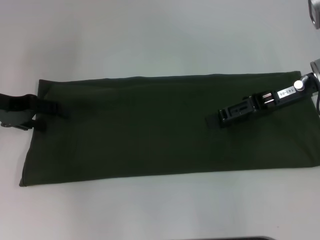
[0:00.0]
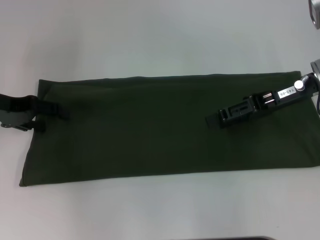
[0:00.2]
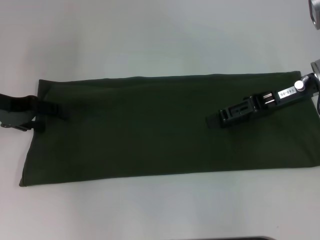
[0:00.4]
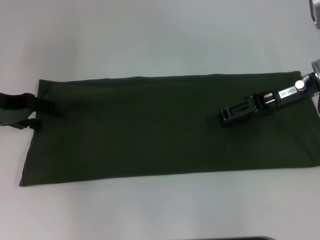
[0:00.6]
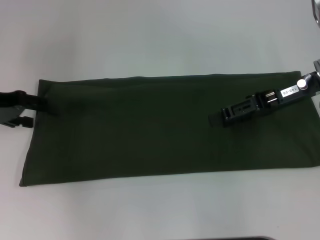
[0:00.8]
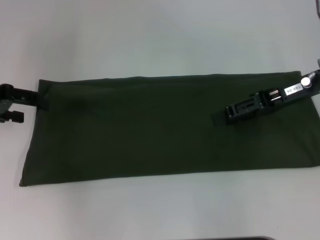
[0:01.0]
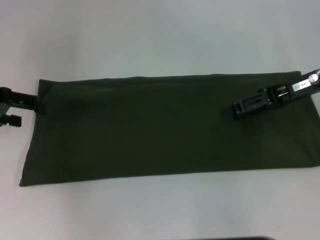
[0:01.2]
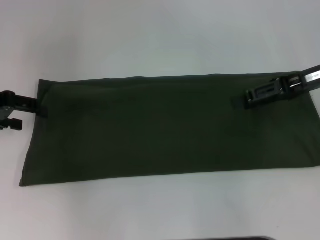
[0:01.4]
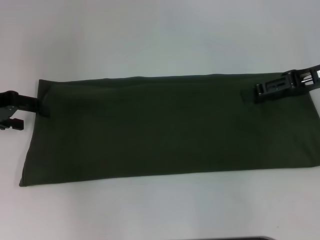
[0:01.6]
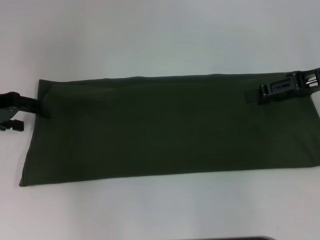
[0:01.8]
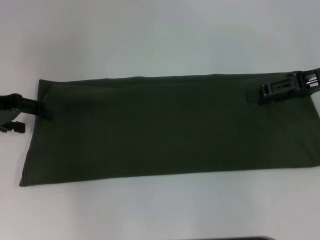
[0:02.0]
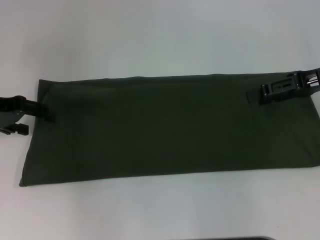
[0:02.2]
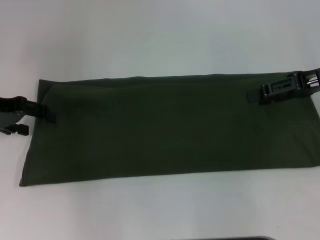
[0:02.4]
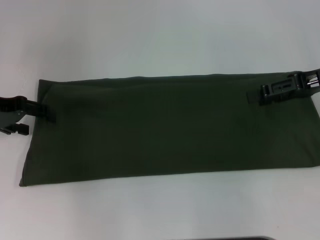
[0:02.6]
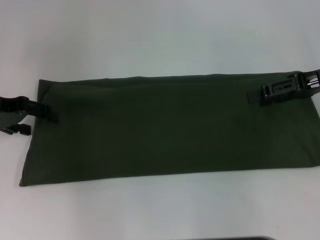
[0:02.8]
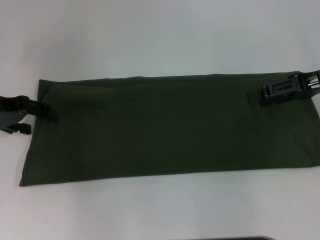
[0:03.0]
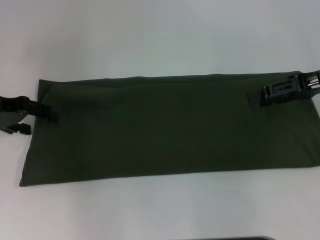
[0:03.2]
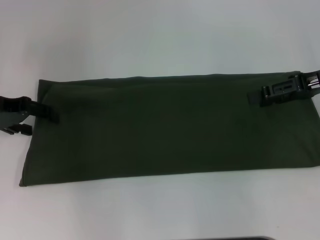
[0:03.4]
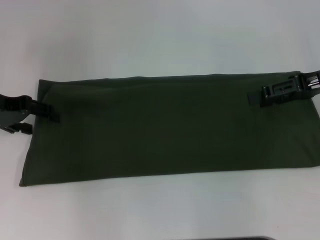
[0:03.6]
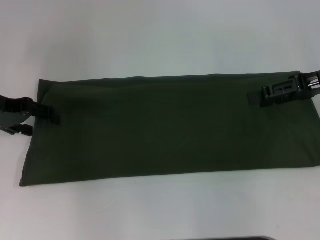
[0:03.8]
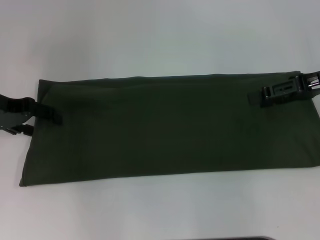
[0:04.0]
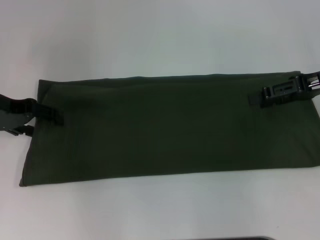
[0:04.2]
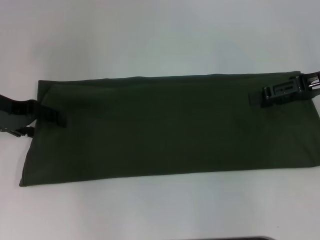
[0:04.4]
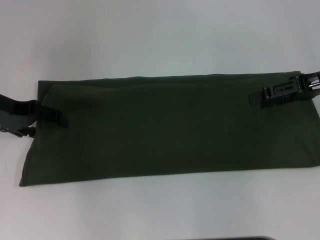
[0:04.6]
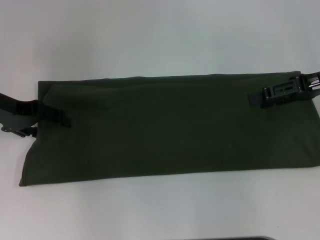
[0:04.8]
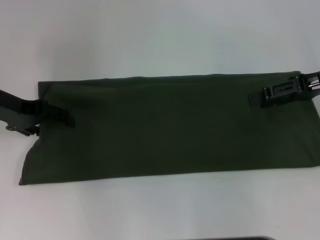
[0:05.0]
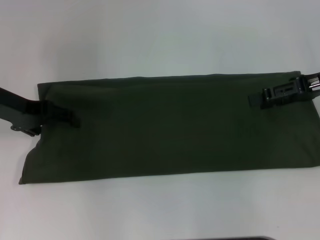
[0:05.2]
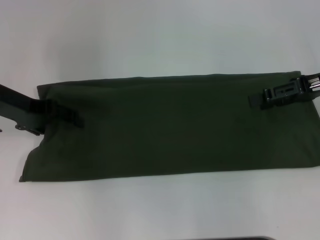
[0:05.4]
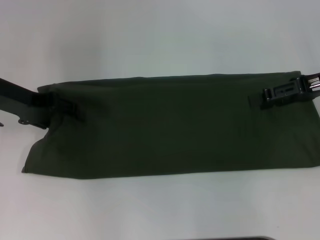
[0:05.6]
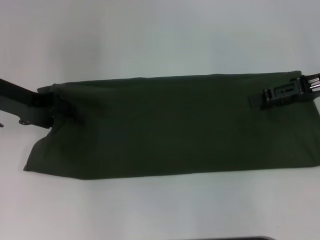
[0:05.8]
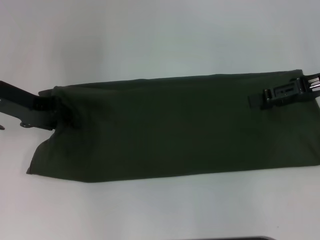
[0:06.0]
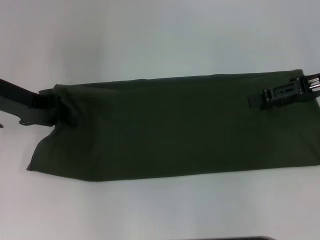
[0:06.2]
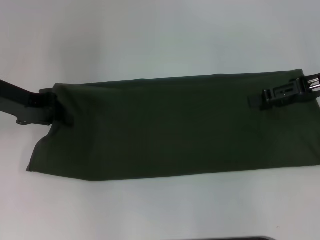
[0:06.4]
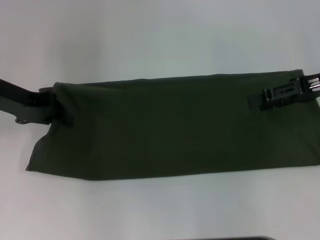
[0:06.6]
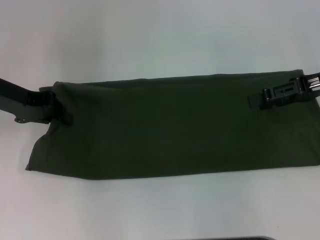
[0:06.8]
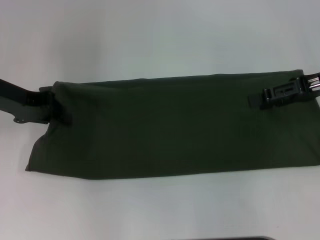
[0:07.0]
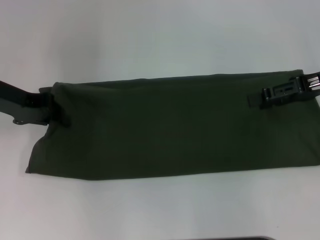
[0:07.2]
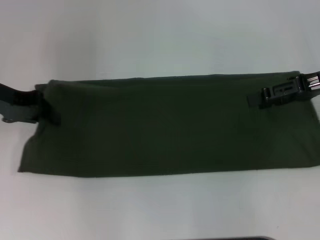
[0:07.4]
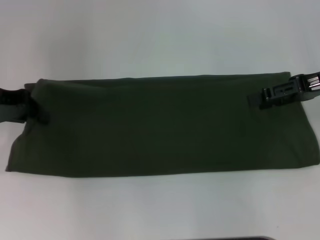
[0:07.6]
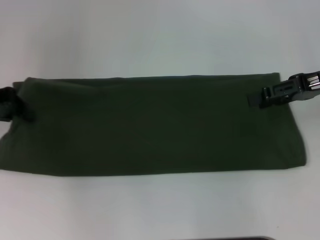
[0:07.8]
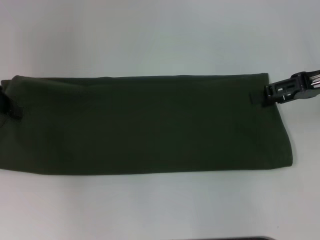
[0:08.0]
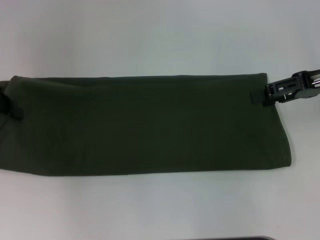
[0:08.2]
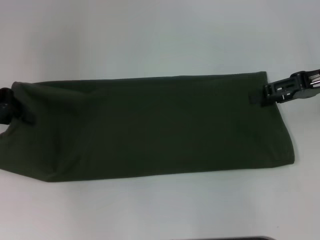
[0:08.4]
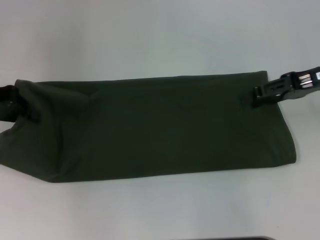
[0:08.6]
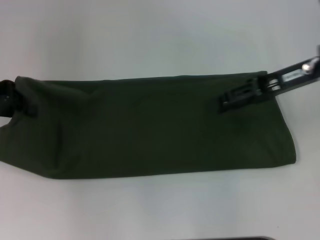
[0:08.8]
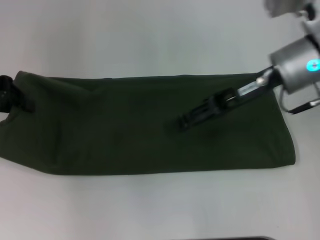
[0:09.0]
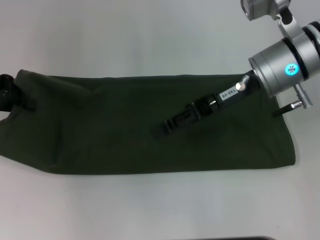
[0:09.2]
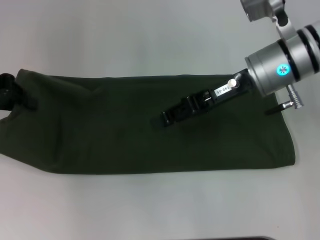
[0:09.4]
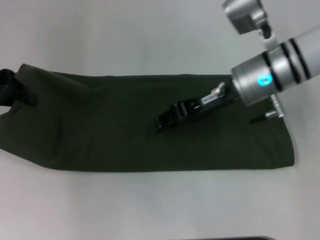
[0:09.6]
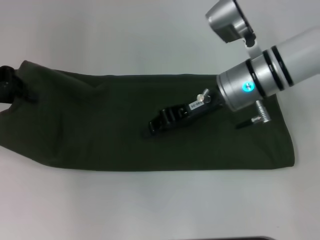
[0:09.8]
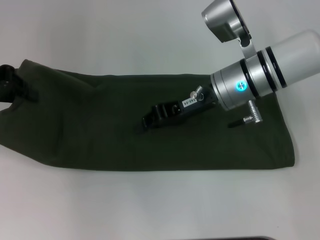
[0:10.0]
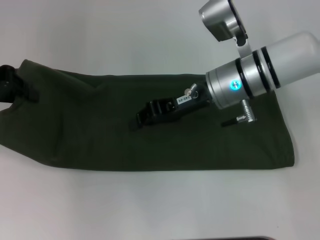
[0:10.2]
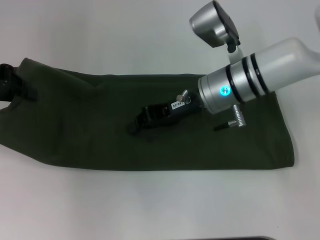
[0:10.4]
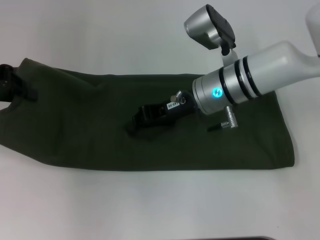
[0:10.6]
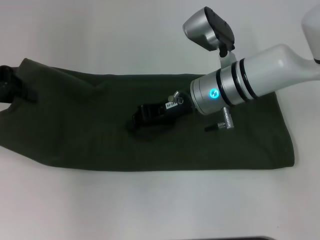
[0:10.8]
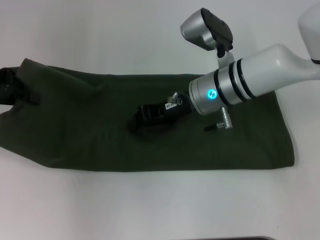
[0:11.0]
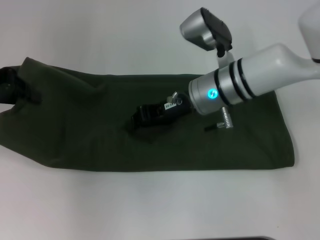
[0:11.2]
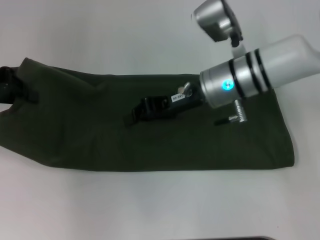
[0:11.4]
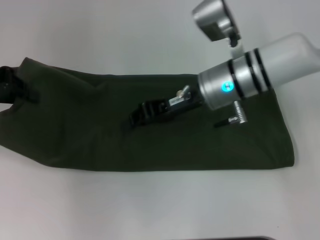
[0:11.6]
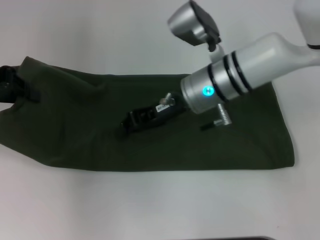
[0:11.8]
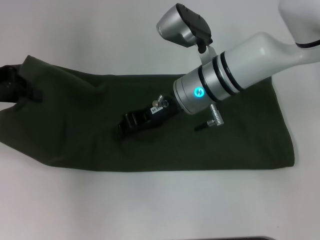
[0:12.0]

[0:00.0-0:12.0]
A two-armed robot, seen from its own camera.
0:00.0 to 0:01.6: The right gripper heads to the right, covering approximately 5 cm.
0:01.6 to 0:03.0: The grippers make only small movements.
0:04.4 to 0:06.0: The left gripper closes.
0:06.0 to 0:07.6: The left gripper closes.
0:07.6 to 0:09.0: The right gripper heads to the left, covering some 10 cm.
0:09.0 to 0:10.4: The right gripper travels to the left and downward by roughly 10 cm, and closes its fingers.
0:10.4 to 0:12.0: There are only small adjustments of the grippers.

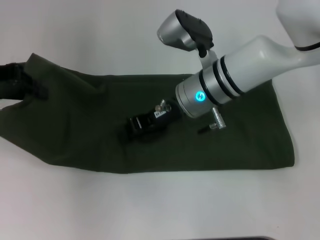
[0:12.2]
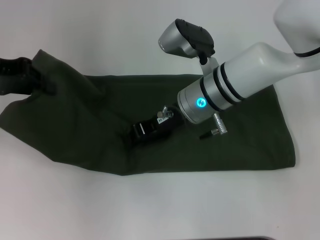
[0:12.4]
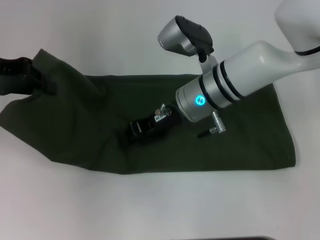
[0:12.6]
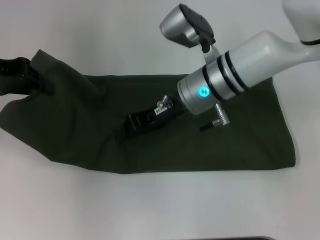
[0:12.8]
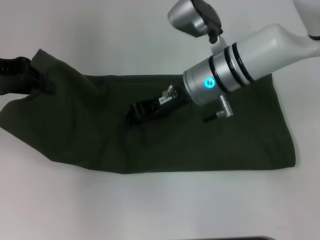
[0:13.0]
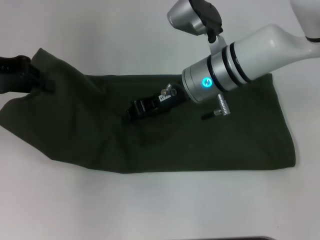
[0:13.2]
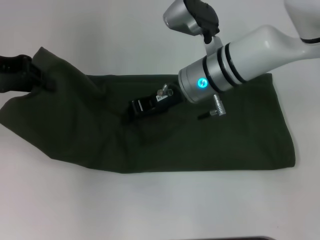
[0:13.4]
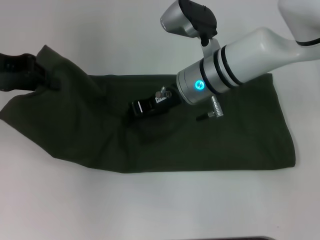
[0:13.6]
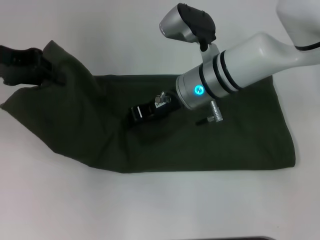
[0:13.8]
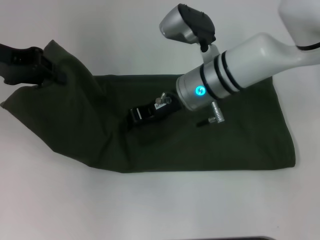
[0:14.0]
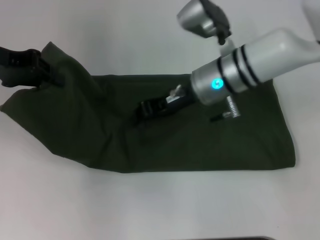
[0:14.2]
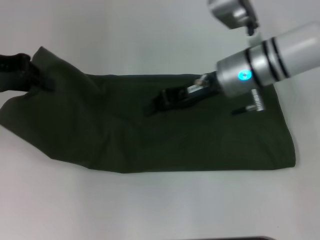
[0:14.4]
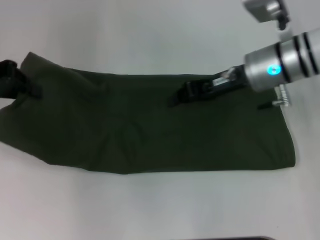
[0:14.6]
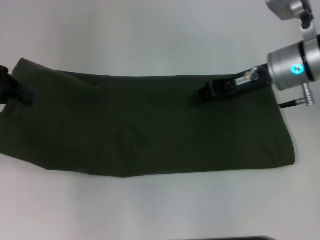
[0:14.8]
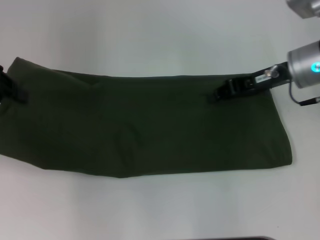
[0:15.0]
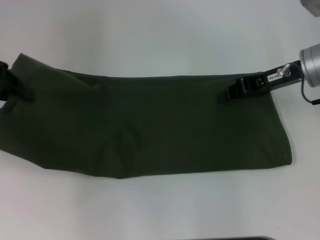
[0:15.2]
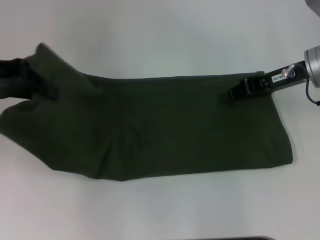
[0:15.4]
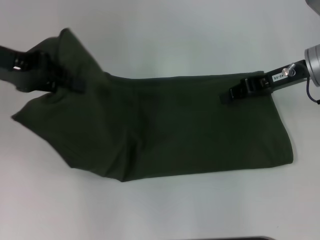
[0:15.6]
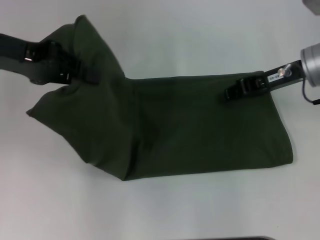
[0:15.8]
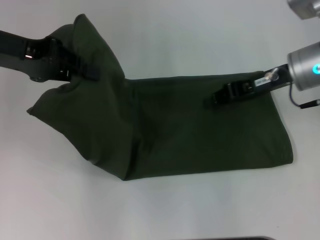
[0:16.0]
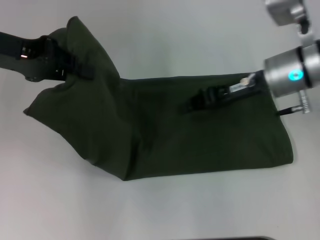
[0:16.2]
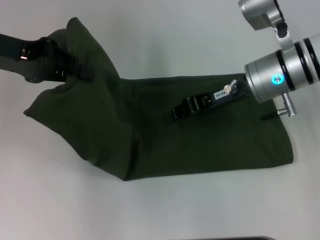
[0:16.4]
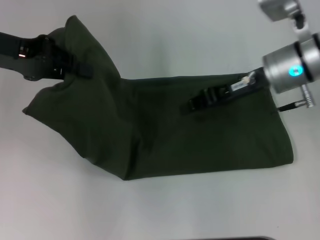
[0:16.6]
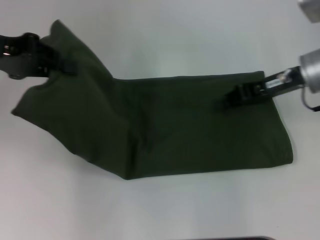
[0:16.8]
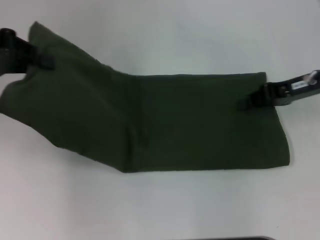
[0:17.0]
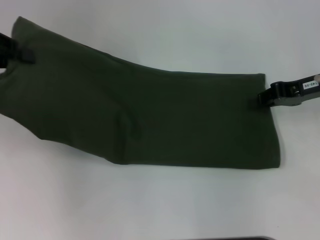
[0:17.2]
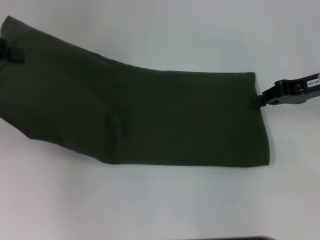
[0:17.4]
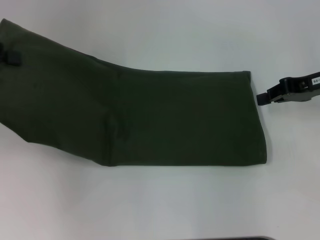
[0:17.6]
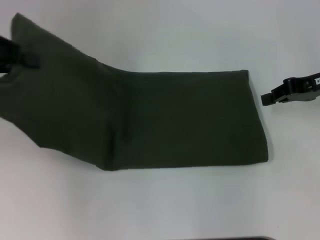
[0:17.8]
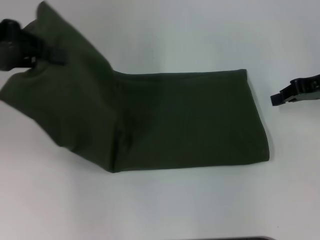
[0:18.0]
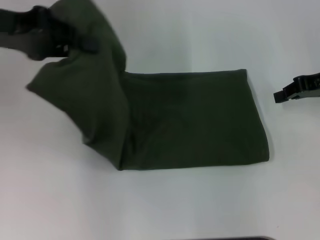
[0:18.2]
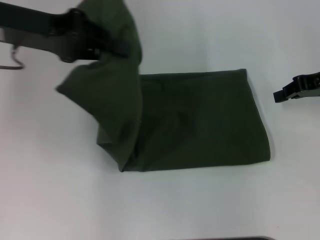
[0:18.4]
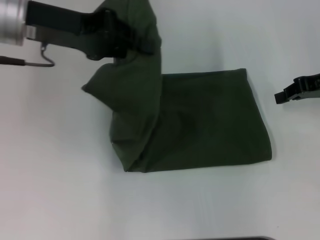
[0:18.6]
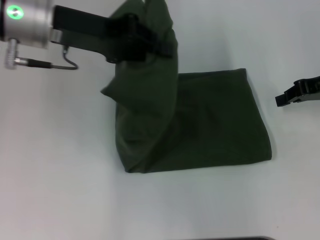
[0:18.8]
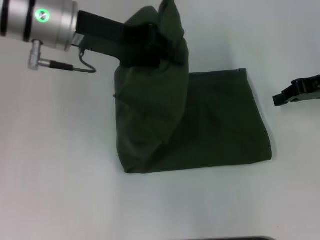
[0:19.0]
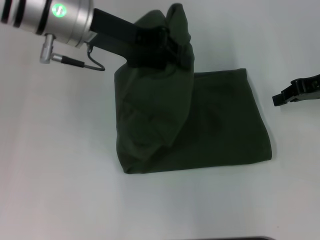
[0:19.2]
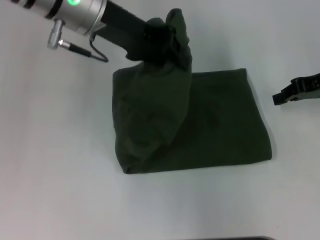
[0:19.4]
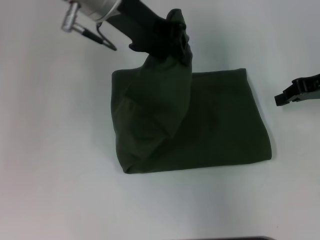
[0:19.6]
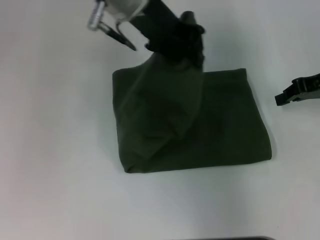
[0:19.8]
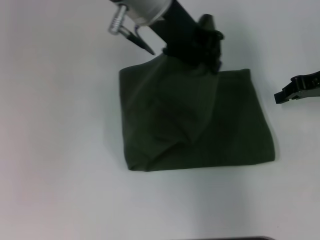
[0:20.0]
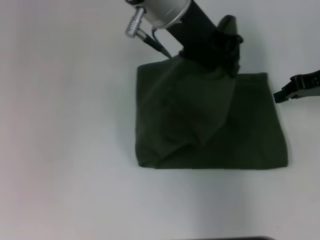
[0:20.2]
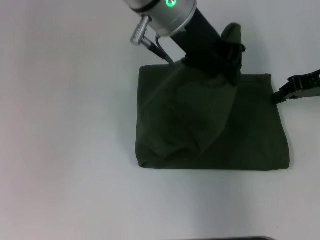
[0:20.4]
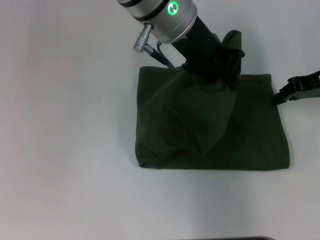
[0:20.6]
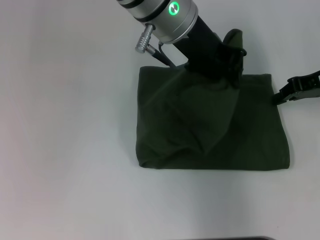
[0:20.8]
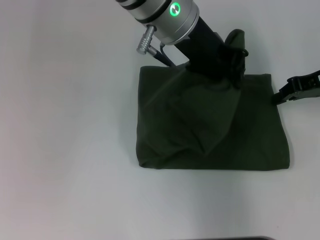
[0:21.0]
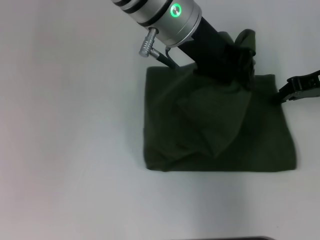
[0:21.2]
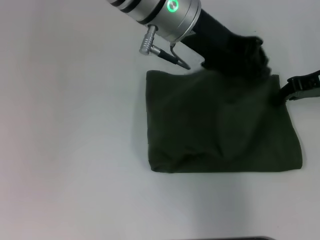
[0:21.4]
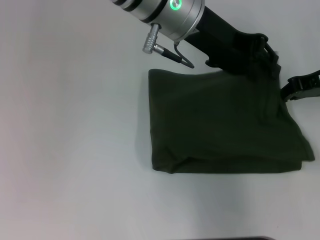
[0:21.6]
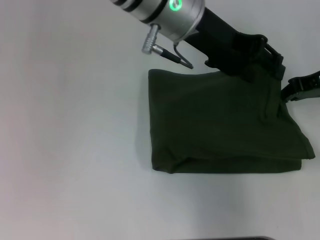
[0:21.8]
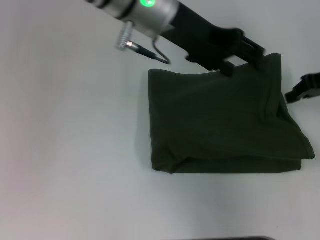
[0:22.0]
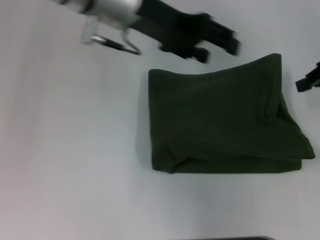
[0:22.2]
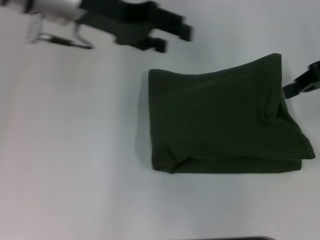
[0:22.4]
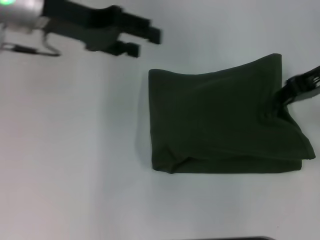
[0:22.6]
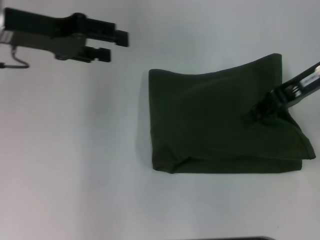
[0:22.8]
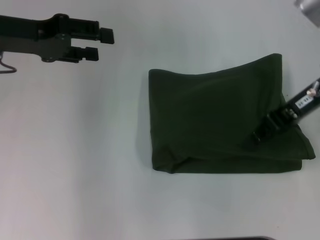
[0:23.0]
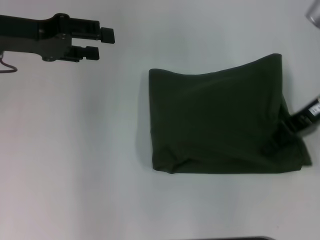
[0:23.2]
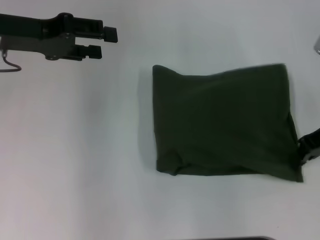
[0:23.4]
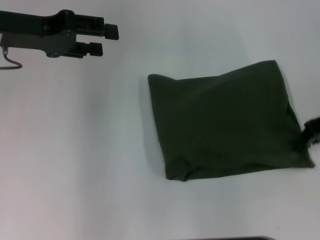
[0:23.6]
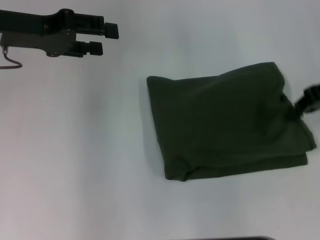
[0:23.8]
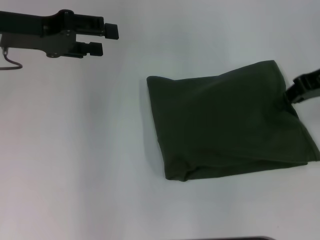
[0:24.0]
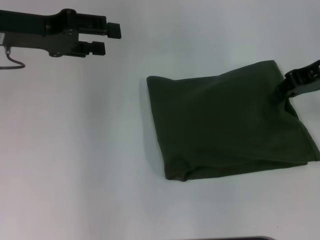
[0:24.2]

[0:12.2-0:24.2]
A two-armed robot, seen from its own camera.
Step, 0:12.2 to 0:21.8: Fold the clothes with your left hand.
0:12.2 to 0:13.8: The grippers stay close to where they were, moving slightly.
0:13.8 to 0:15.2: The right gripper is displaced to the right by roughly 15 cm.
0:15.2 to 0:16.6: The right gripper travels to the left by some 5 cm. Meanwhile the left gripper heads to the right, covering roughly 5 cm.
0:16.6 to 0:18.2: The left gripper travels to the left and back again, some 10 cm each way; the right gripper goes about 15 cm to the right.
0:18.2 to 0:19.8: The left gripper moves to the right, about 20 cm.
0:19.8 to 0:21.2: The left gripper shifts by approximately 5 cm.
0:21.2 to 0:22.6: The left gripper heads to the left, covering approximately 20 cm, and opens up. Meanwhile the right gripper heads upward, covering about 5 cm.
0:22.6 to 0:24.2: The left gripper shifts by approximately 5 cm.
